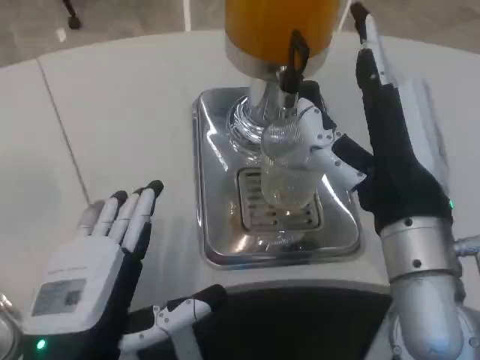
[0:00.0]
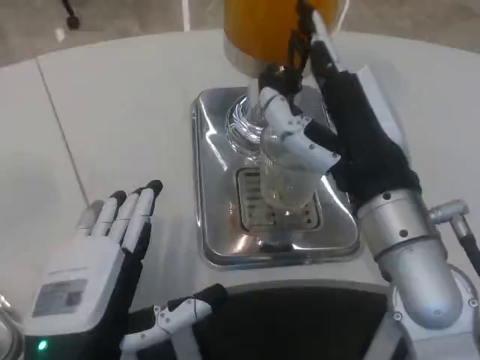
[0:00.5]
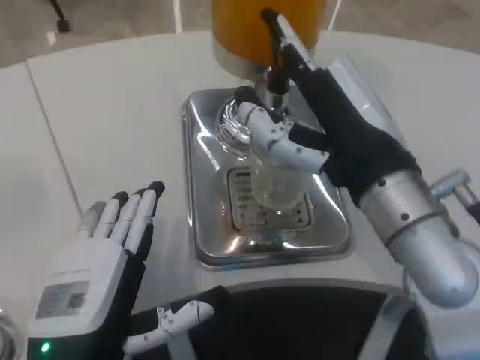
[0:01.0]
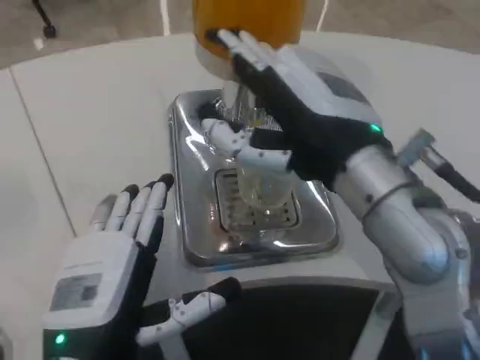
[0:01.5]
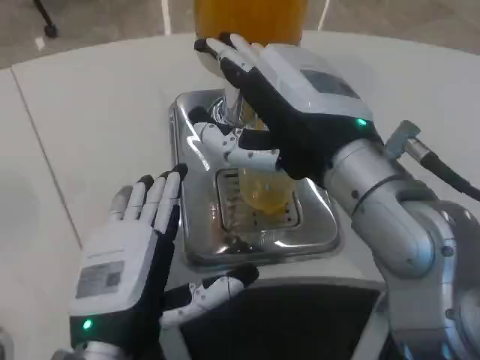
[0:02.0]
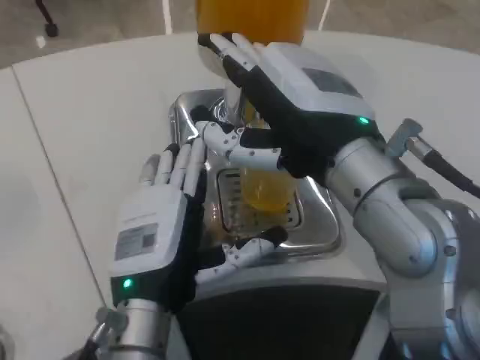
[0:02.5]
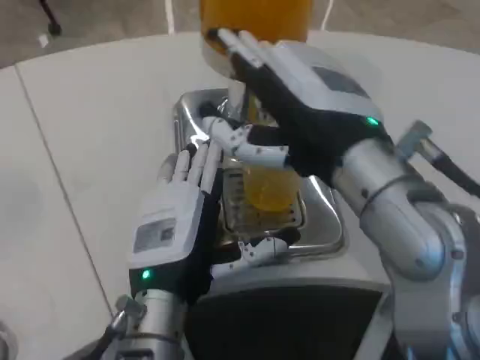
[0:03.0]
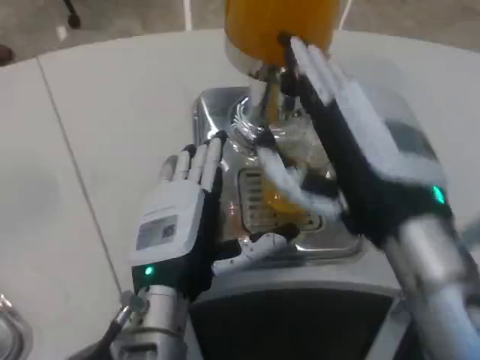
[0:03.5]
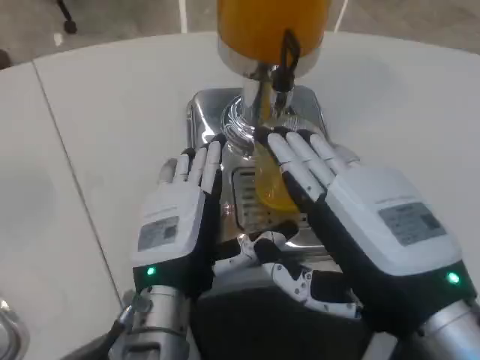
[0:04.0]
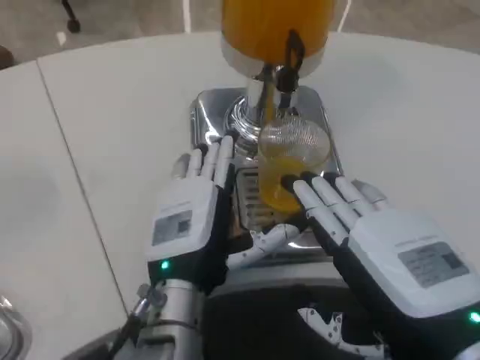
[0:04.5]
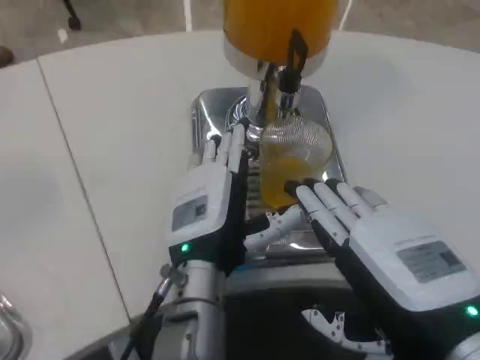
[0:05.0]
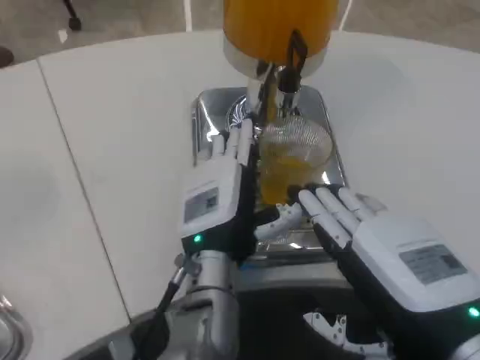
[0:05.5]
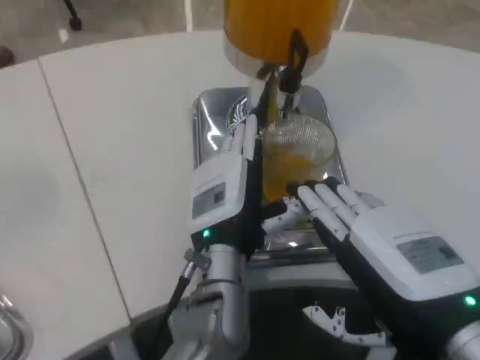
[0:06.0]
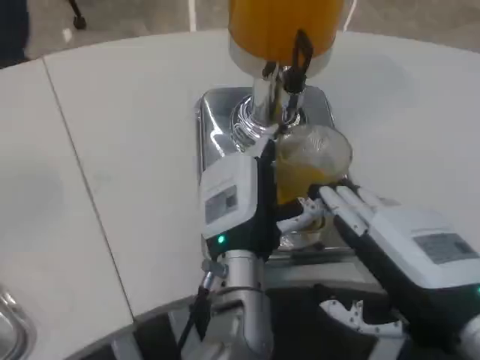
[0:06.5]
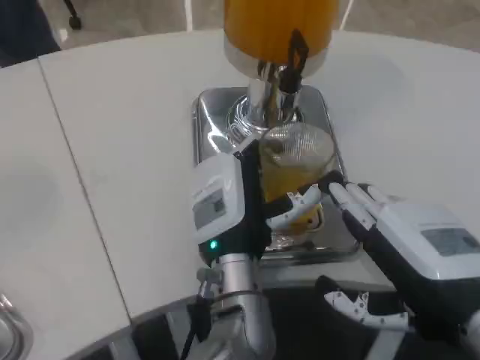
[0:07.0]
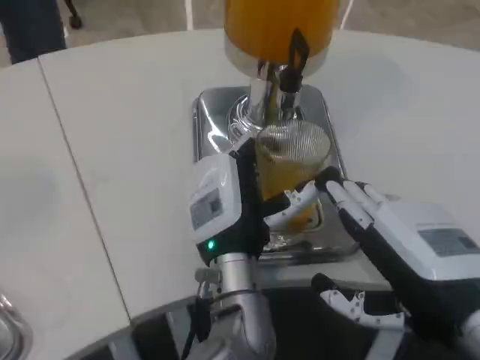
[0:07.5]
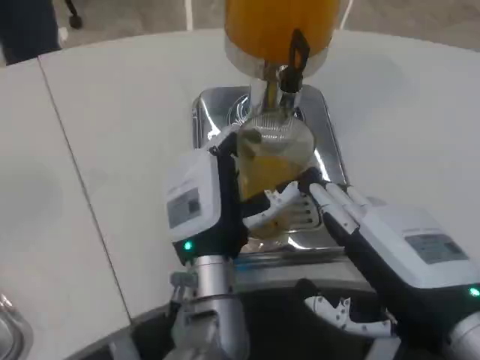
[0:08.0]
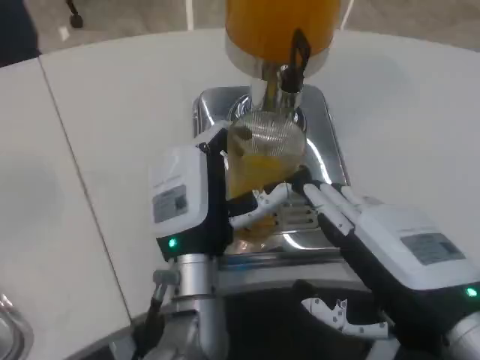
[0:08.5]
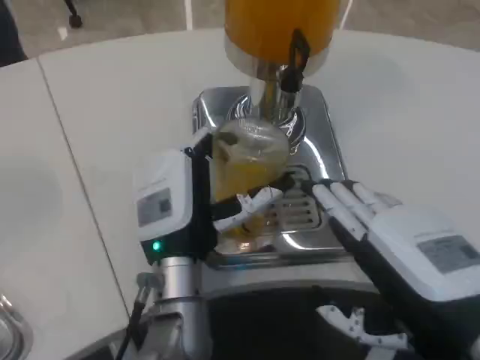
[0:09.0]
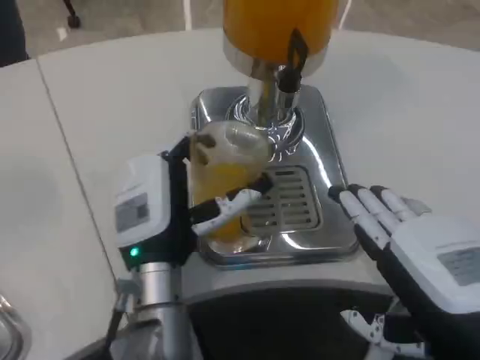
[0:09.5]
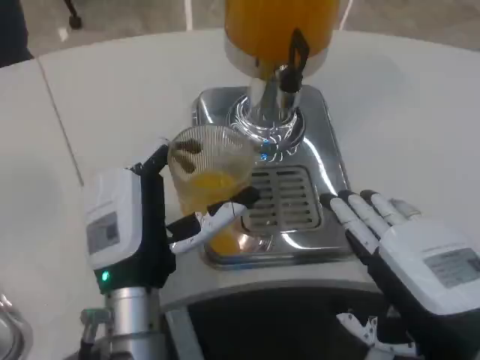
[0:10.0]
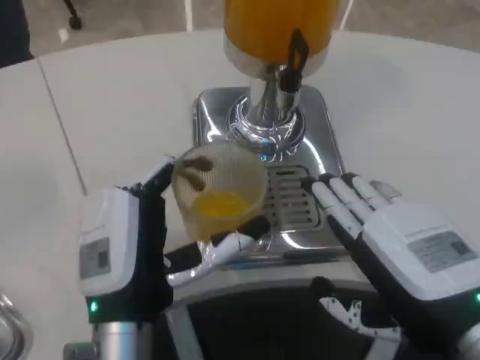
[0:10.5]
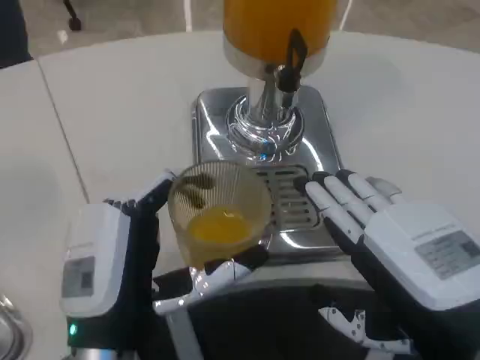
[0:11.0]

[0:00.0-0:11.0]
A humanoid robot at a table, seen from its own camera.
Task of the whole recording: Grasp the cup under the faucet to collect the drink, then remove the cup.
0:00.0 to 0:02.0: The right hand travels upward by roughly 5 cm.
0:02.0 to 0:03.5: The left hand shifts roughly 5 cm forward. Meanwhile the right hand moves downward, about 5 cm.
0:03.5 to 0:05.5: The left hand is displaced to the right by about 5 cm. The right hand shifts by some 5 cm.
0:07.5 to 0:09.0: The left hand heads to the left, covering roughly 5 cm.
0:09.0 to 0:11.0: The left hand shifts some 10 cm backward and to the left.

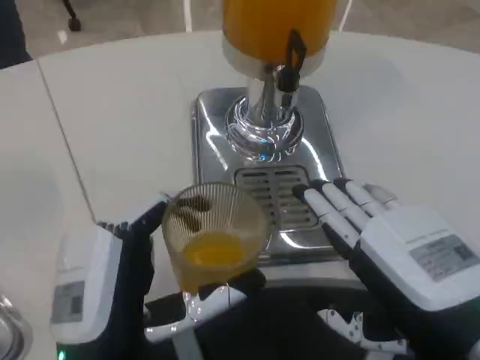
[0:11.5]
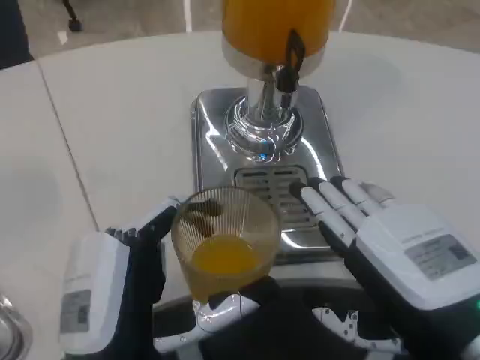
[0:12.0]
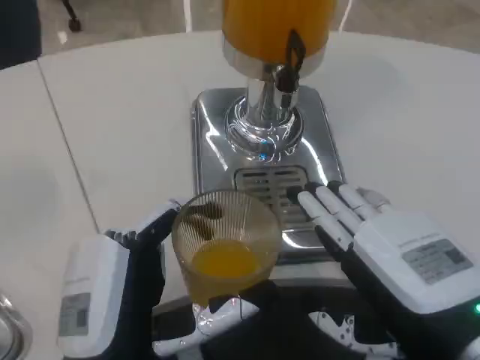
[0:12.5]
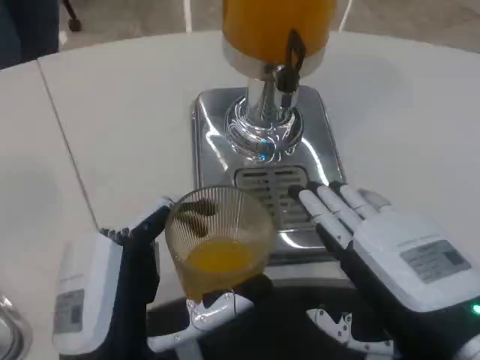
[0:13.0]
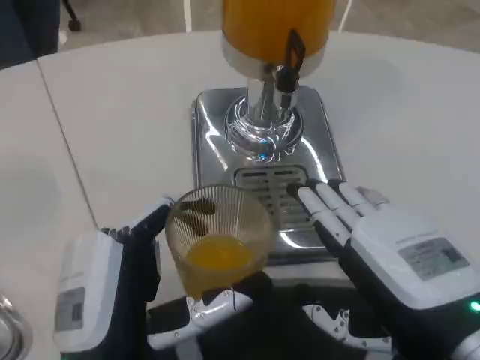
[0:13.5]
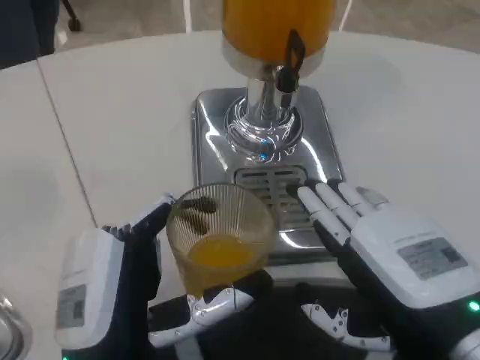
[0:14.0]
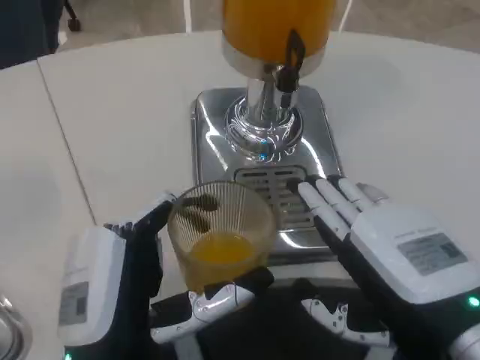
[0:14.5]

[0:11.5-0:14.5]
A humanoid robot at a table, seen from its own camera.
Task of the whole recording: Grasp the cup under the faucet to collect the drink, then remove the cup.
0:11.5 to 0:13.0: The hands make only small movements.
0:13.0 to 0:14.5: The two hands keep their place.

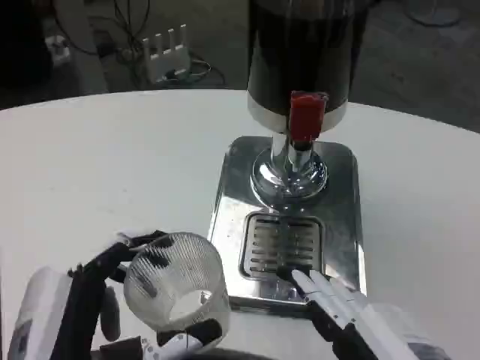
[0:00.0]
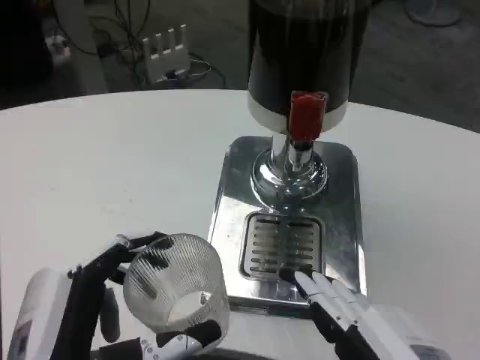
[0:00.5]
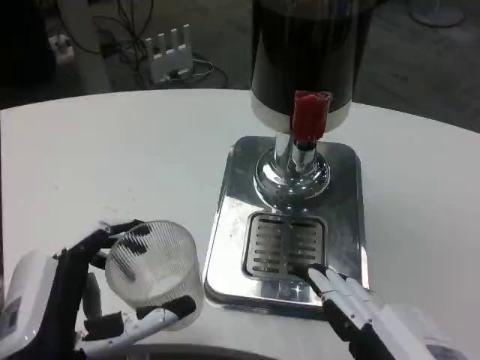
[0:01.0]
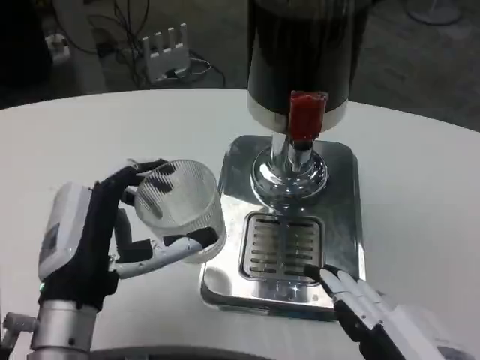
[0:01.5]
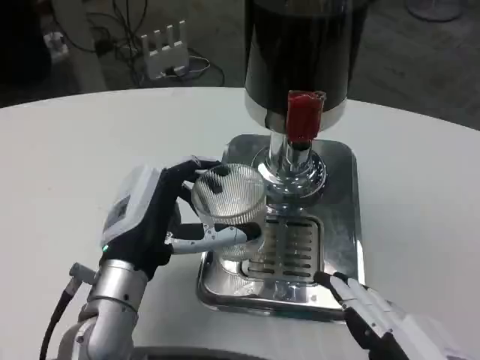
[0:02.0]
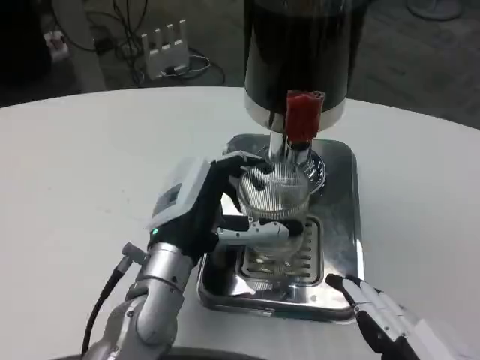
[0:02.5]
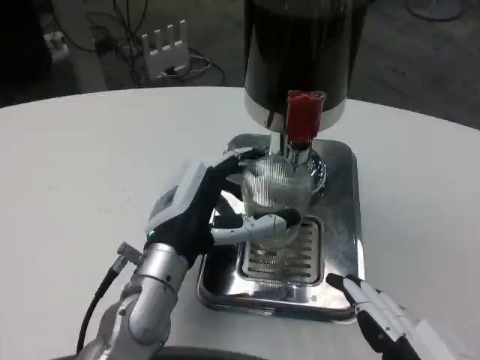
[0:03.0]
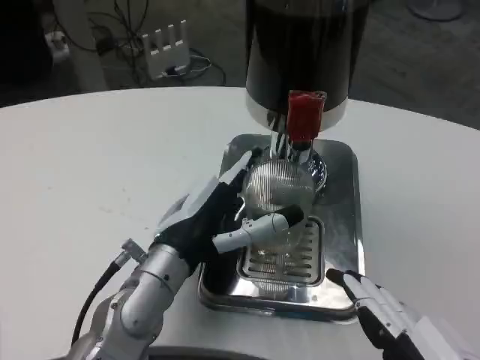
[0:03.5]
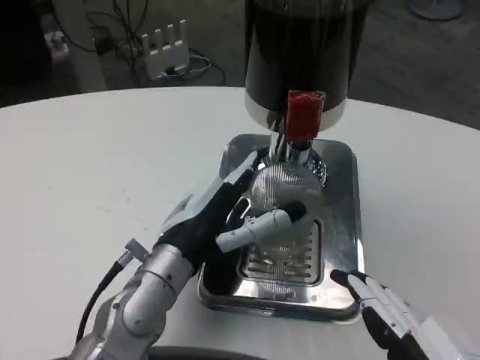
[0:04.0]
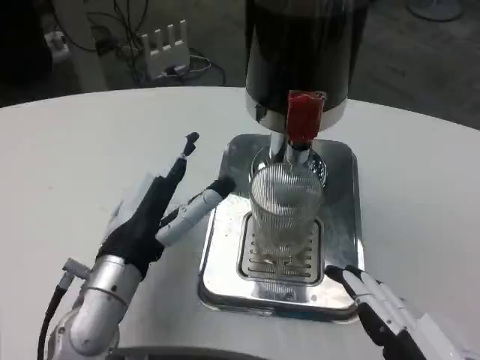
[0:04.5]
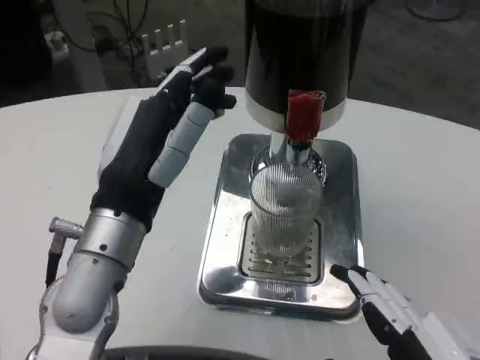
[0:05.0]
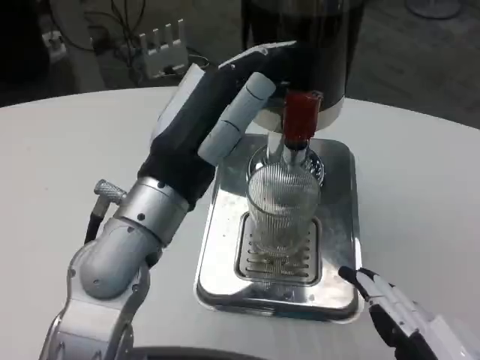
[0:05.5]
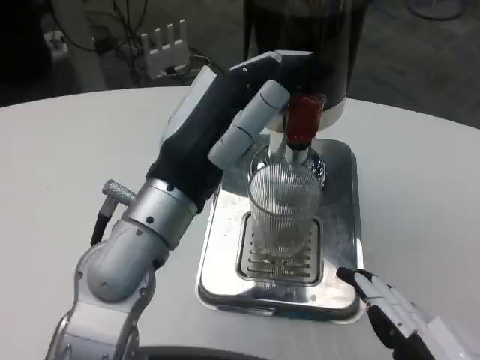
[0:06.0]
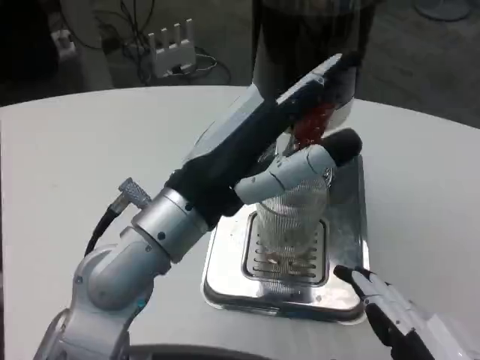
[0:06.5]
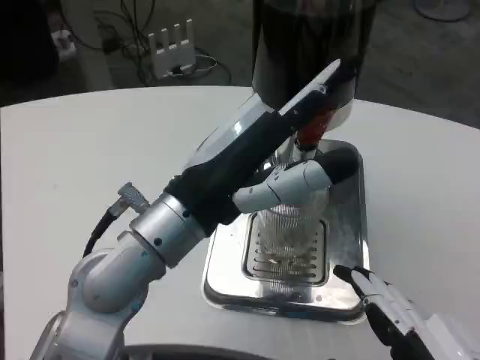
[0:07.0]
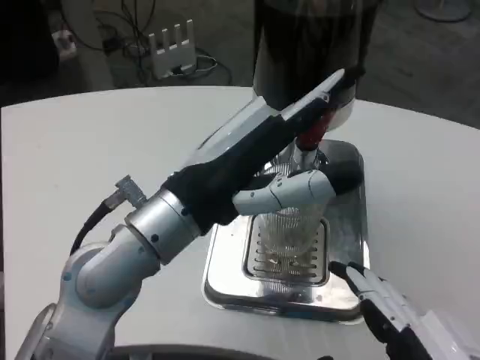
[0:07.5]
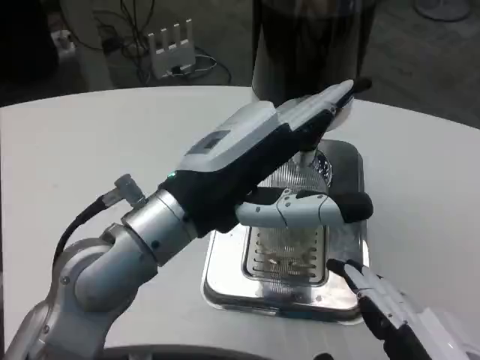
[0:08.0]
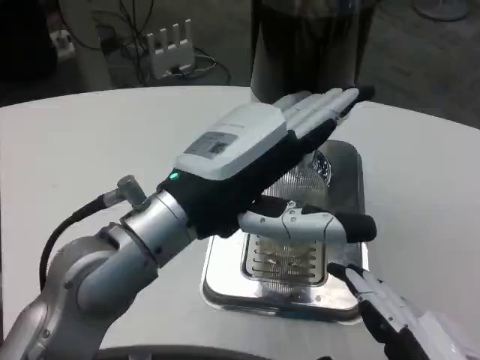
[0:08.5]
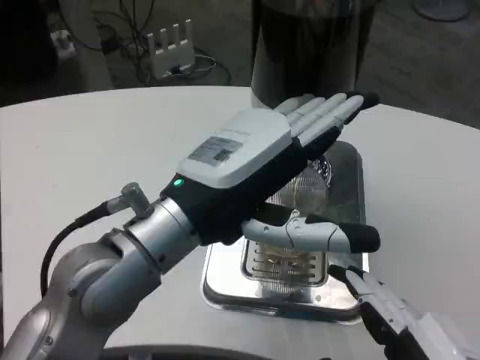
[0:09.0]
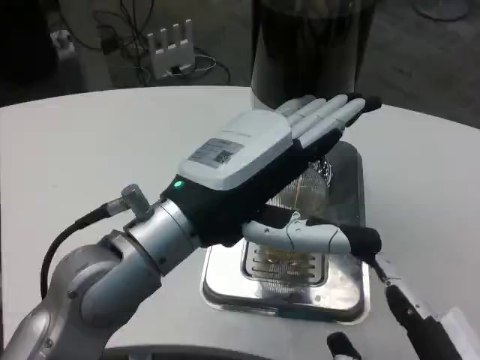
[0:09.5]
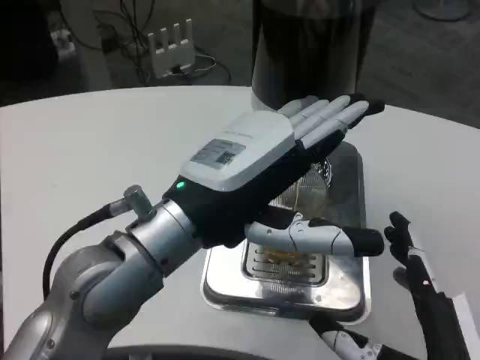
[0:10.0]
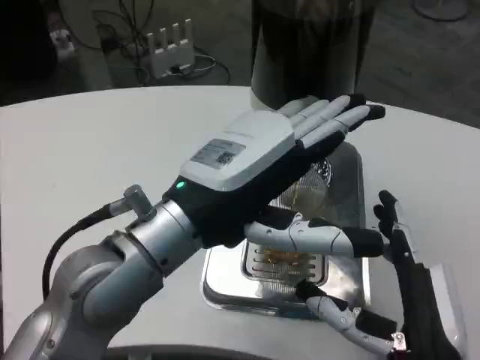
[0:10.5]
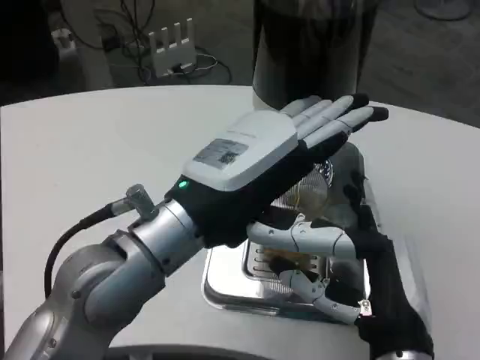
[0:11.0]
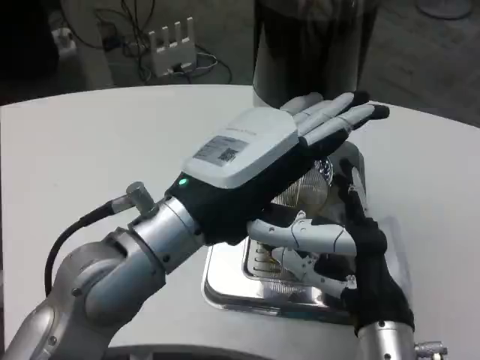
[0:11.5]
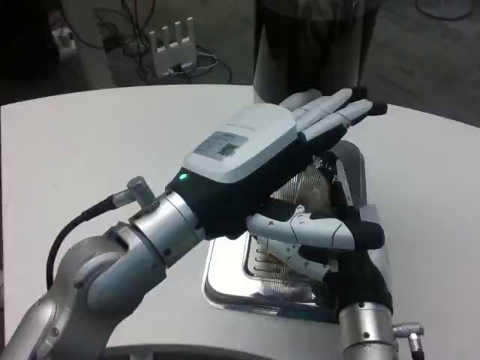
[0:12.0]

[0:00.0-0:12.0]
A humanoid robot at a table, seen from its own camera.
Task of the whole recording: Grasp the cup under the faucet to collect the drink, then remove the cup.
0:00.0 to 0:02.0: The left hand moves forward, roughly 15 cm.
0:02.0 to 0:04.0: There are only small adjustments of the hands.
0:04.0 to 0:06.0: The left hand shifts approximately 10 cm upward.
0:08.0 to 0:10.0: The right hand ends up about 5 cm from where it was.
0:10.0 to 0:12.0: The right hand travels forward by roughly 10 cm.
